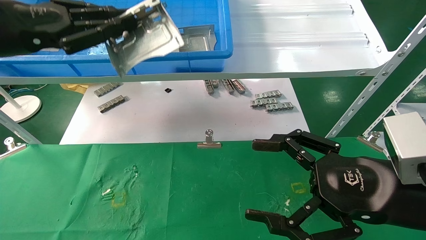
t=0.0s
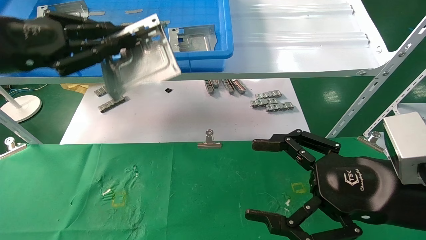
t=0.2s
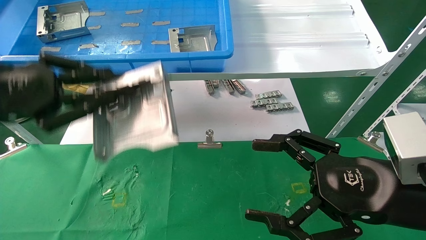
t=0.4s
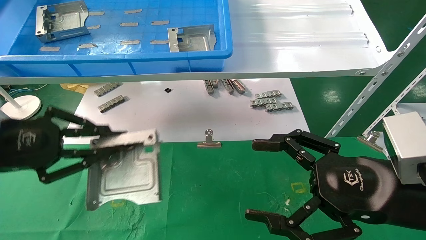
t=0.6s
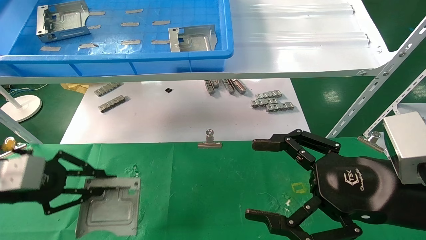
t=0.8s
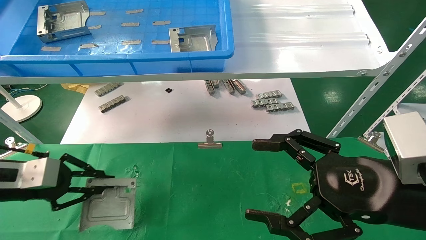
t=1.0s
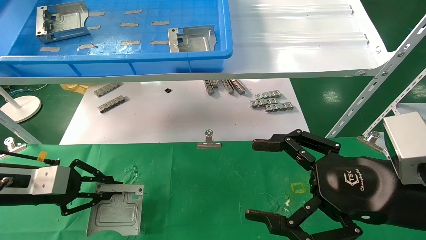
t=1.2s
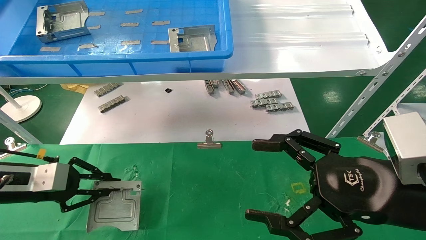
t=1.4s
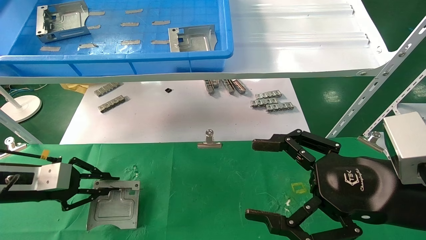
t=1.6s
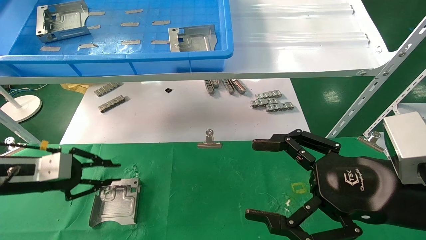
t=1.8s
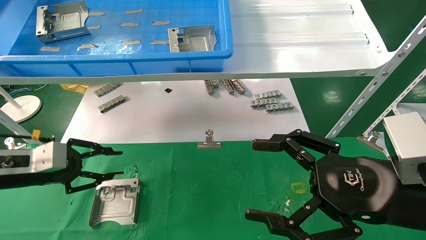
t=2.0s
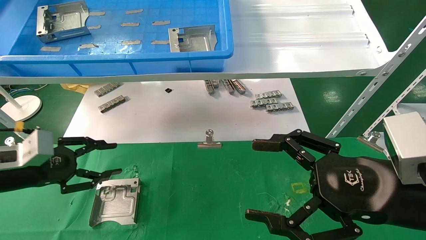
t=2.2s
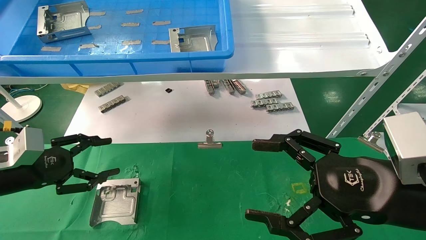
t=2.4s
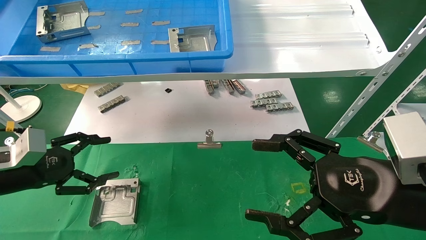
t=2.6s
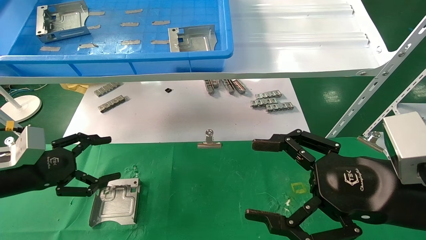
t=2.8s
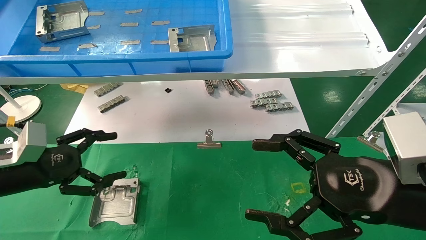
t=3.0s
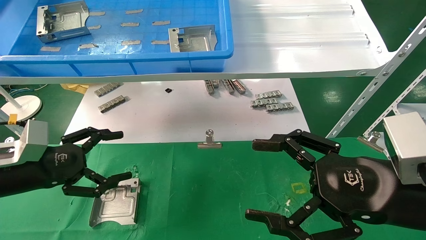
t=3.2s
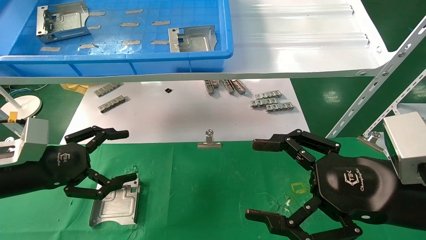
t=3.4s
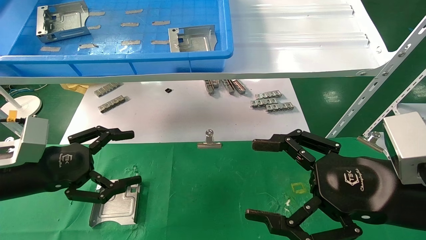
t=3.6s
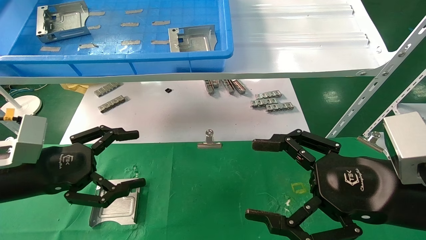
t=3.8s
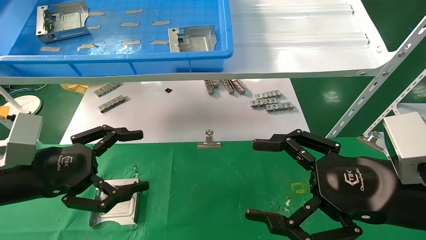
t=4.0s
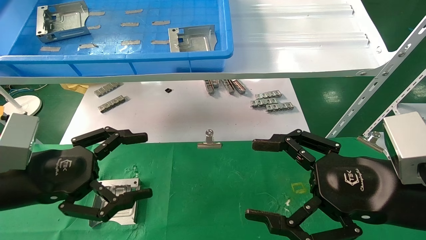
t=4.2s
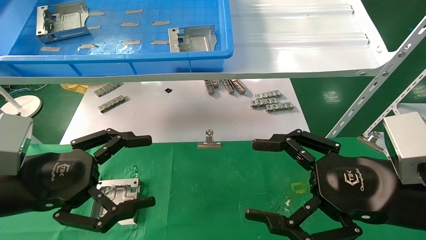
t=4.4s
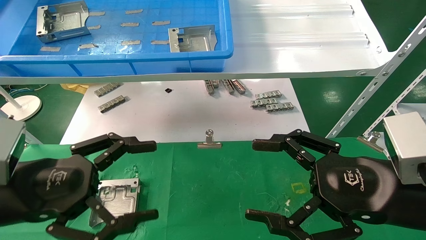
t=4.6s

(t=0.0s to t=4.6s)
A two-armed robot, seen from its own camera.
Task of the whole recording: use the mechanical arm to pick up the parts and place them on the table.
Step, t=0.0s - t=2.2s: Place the hard drive bracket into the box.
t=0.0s - t=1.6s: The left gripper moves downward, some 25 cm.
t=1.6s - t=3.0s: The left gripper opens.
t=3.0s - t=4.6s: The left gripper is displaced backward and to the right by some 15 cm.
